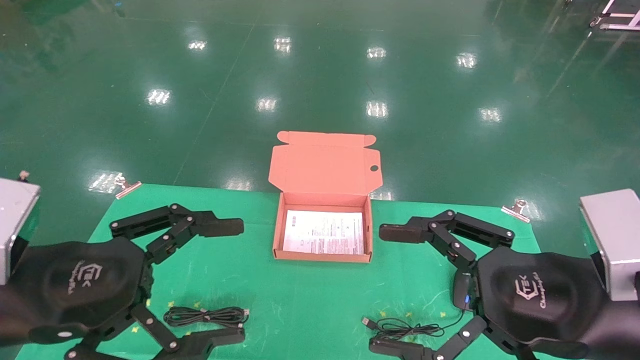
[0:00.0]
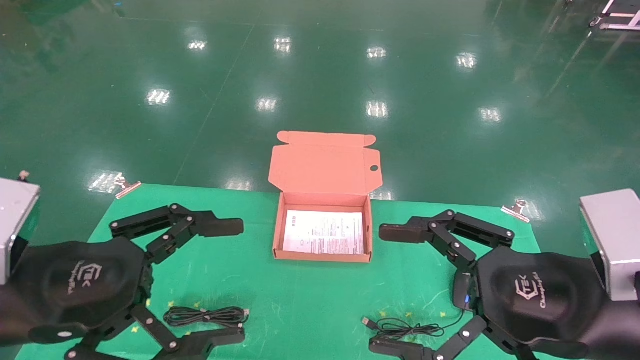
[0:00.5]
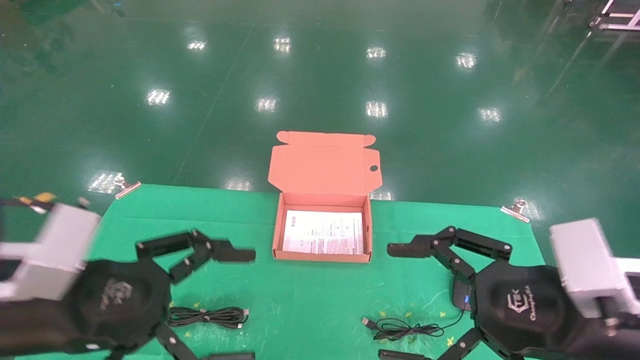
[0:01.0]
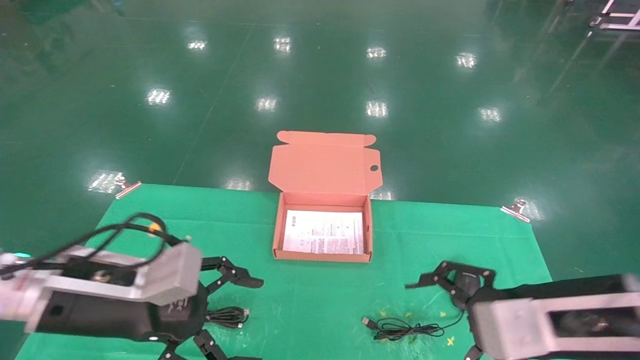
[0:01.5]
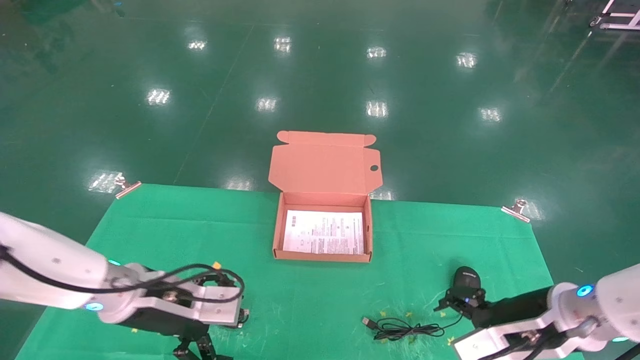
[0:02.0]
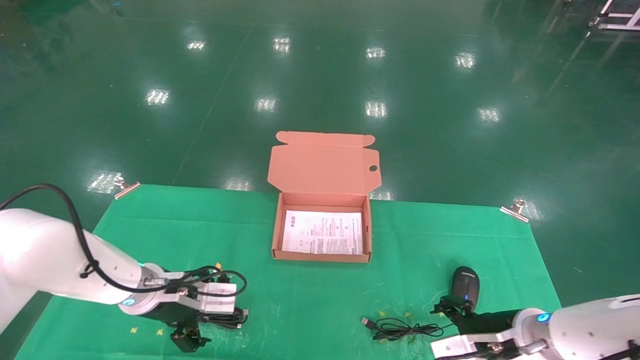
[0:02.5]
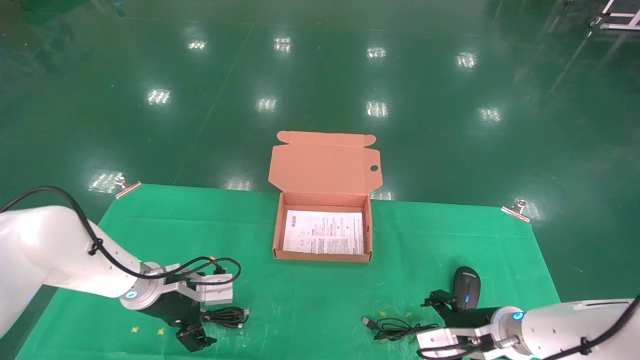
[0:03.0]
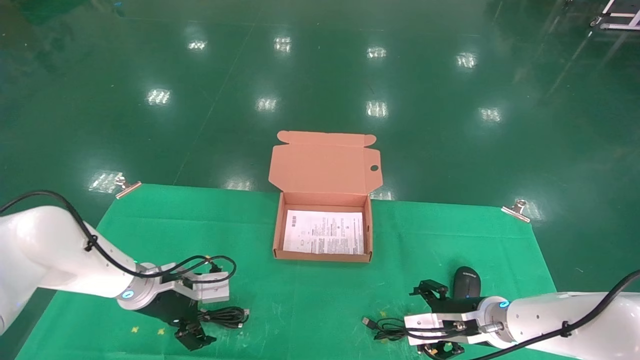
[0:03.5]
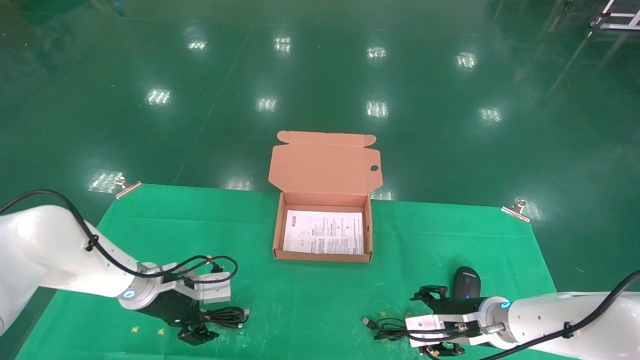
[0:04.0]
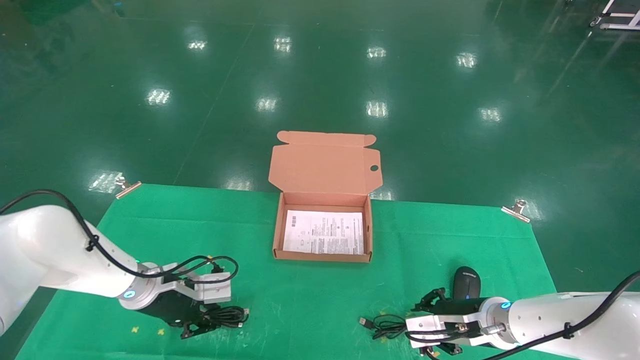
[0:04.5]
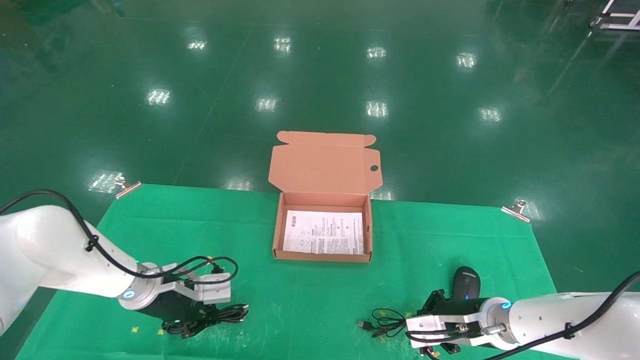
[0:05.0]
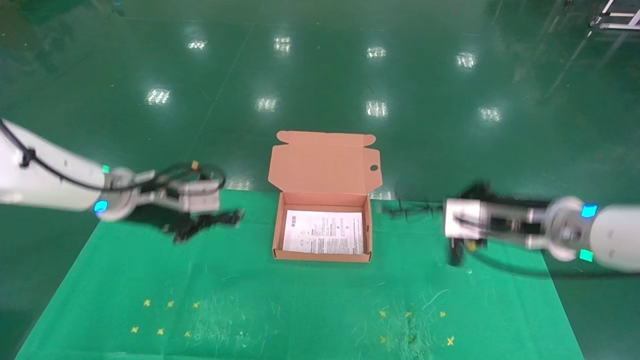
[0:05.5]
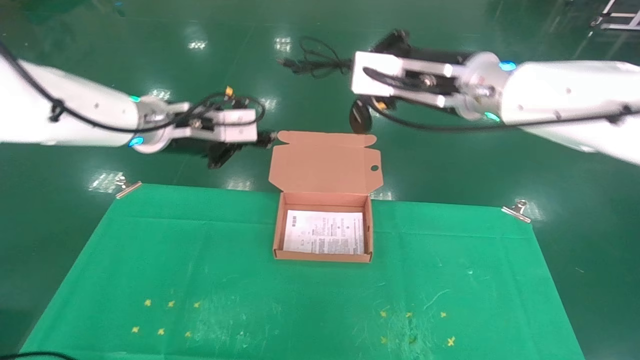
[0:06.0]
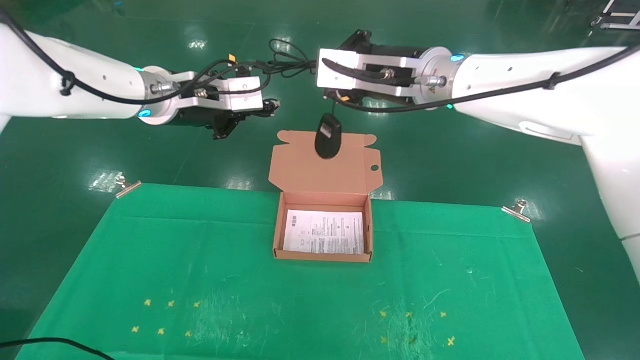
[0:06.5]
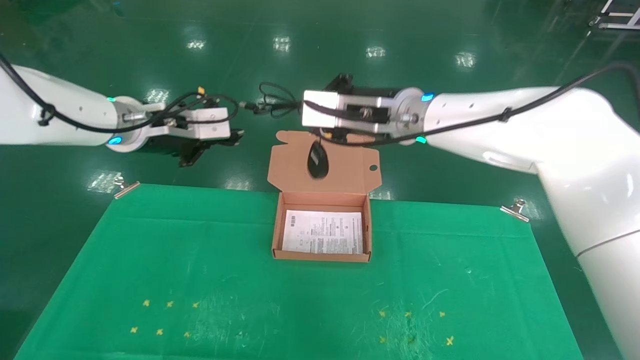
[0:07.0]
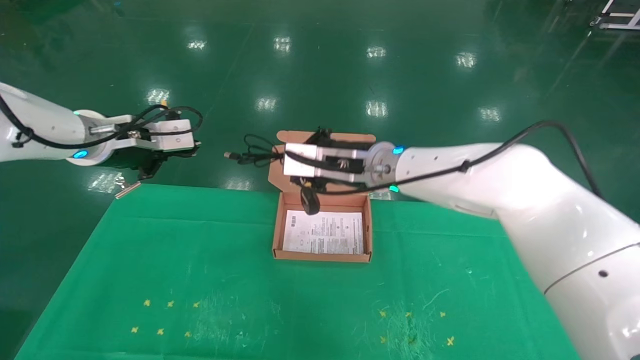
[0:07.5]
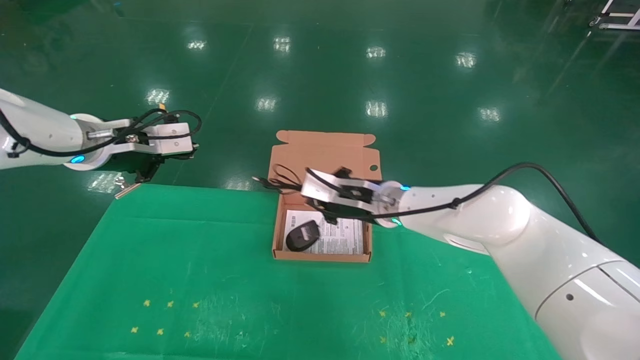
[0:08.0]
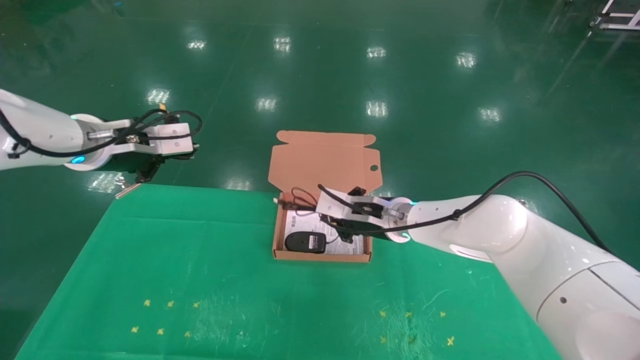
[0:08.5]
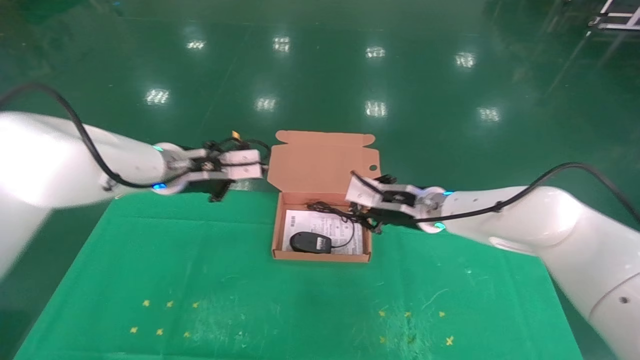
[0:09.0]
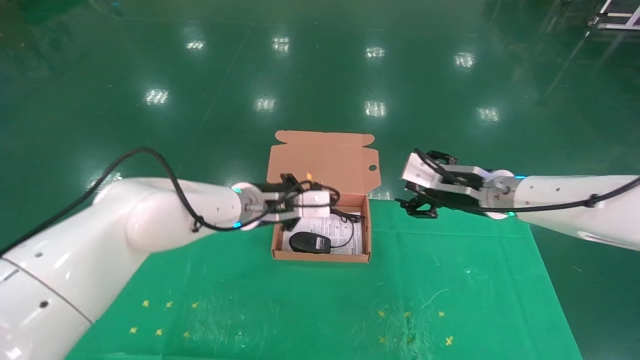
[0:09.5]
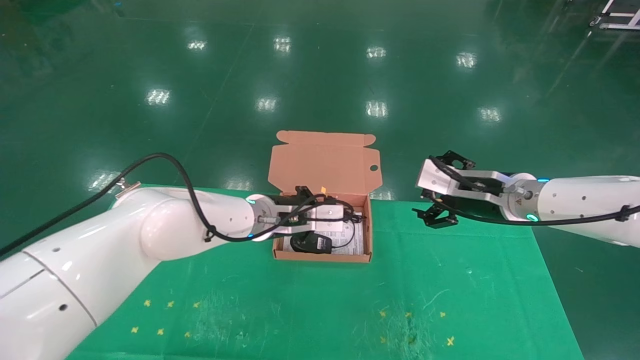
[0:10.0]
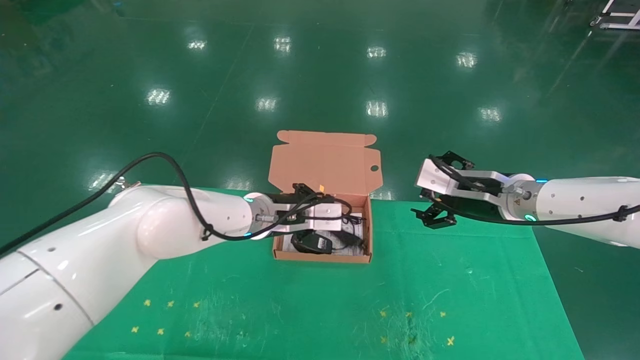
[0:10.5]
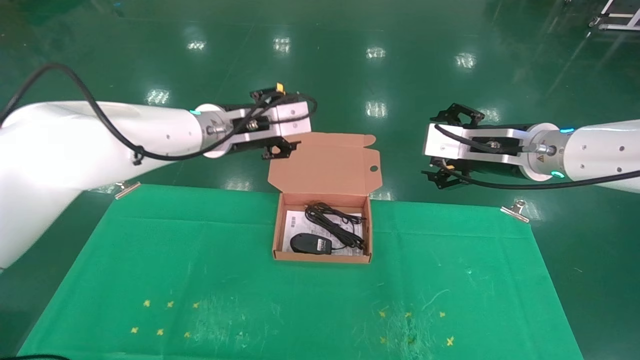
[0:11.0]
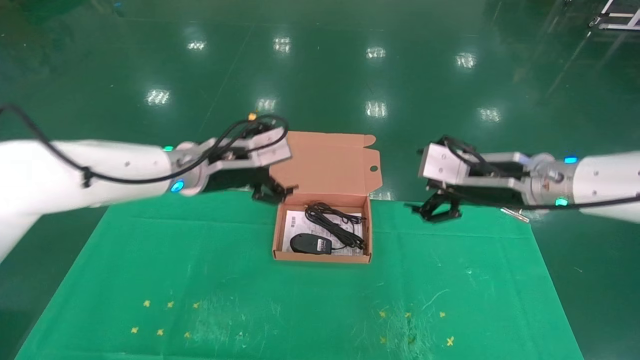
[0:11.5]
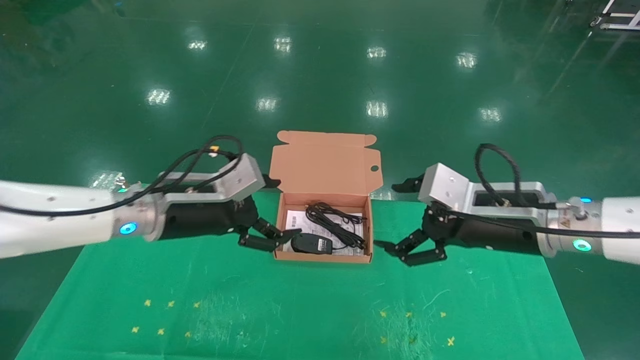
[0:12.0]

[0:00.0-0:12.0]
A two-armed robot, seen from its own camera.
Task of the whole recording: grasp data cable left put into box grasp mouse right put into box.
Step, 0:01.0 to 0:05.5: Grab and pick up both the mouse and power cord from the accessory packaging area at the same time.
Step, 0:06.0 to 0:10.5: Place the mouse and power cord into the box.
0:00.0 to 0:02.0: The two grippers go roughly 15 cm forward and downward.
0:02.0 to 0:04.0: Both grippers move forward and downward, about 10 cm.
0:04.0 to 0:06.0: Both grippers move upward, roughly 30 cm. The right gripper closes its fingers, while the left gripper closes up.
0:06.0 to 0:08.0: The left gripper goes some 10 cm to the left, while the right gripper shifts roughly 20 cm downward, forward and to the left.
0:08.0 to 0:10.0: The left gripper goes some 25 cm to the right and downward, while the right gripper shifts roughly 20 cm to the right, and opens.
0:10.0 to 0:12.0: The left gripper moves to the left and backward, about 15 cm, and opens, while the right gripper heads backward, covering approximately 10 cm.

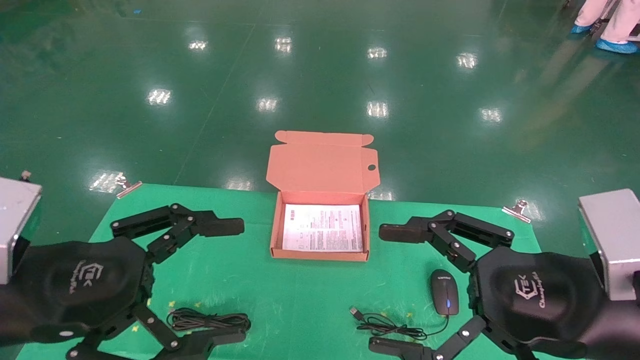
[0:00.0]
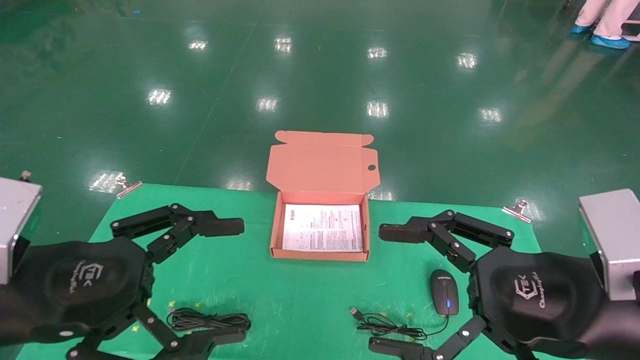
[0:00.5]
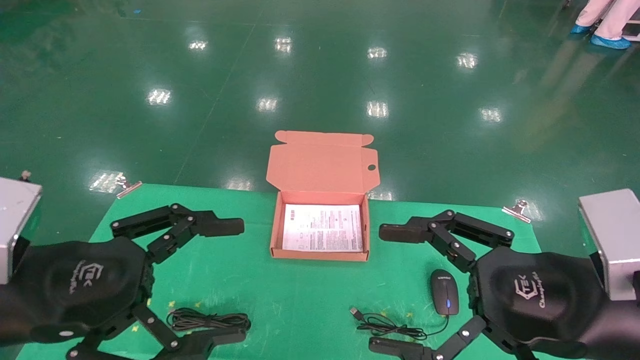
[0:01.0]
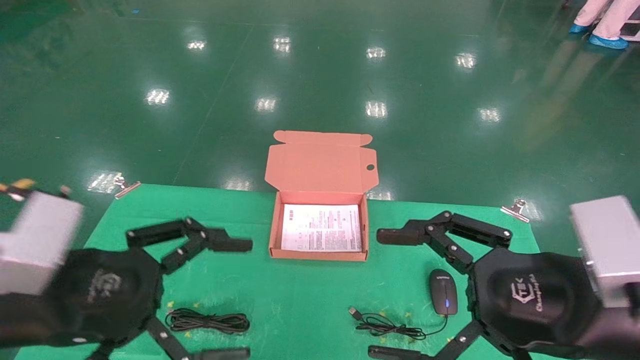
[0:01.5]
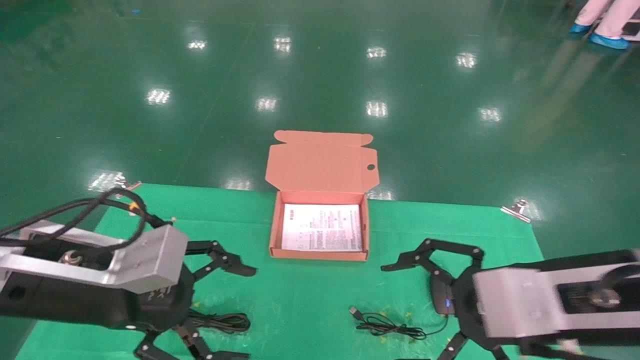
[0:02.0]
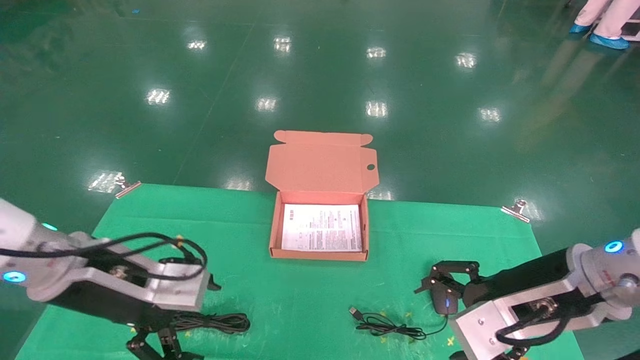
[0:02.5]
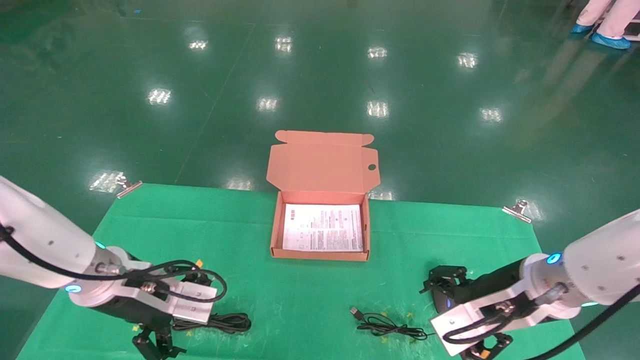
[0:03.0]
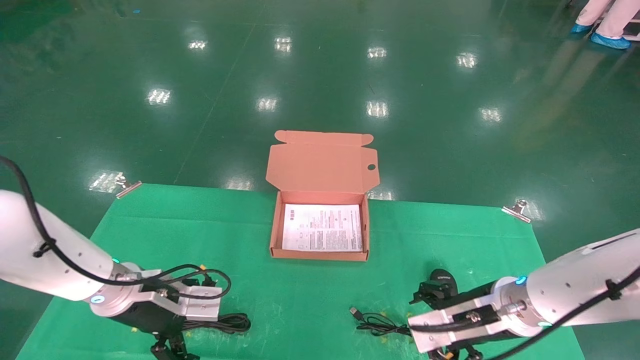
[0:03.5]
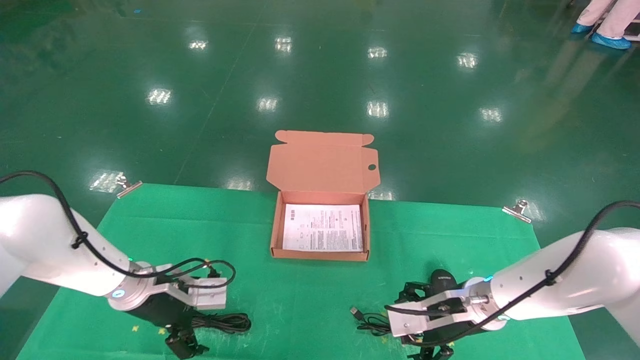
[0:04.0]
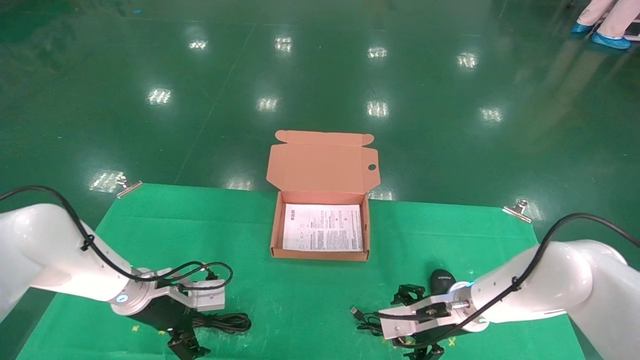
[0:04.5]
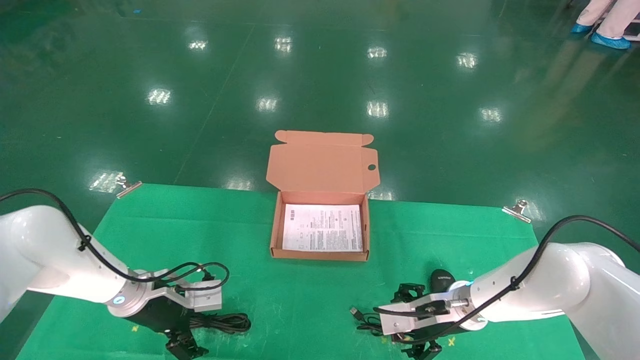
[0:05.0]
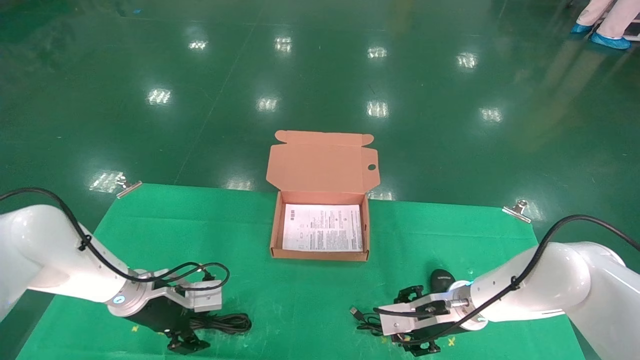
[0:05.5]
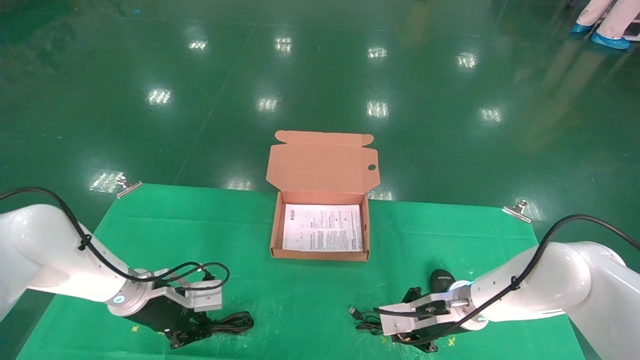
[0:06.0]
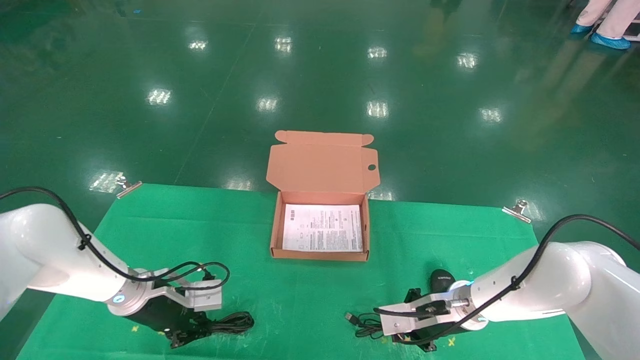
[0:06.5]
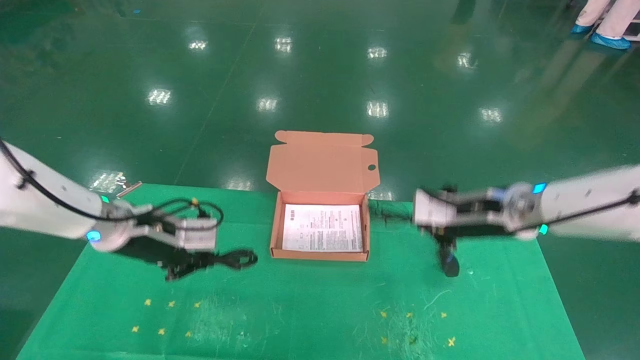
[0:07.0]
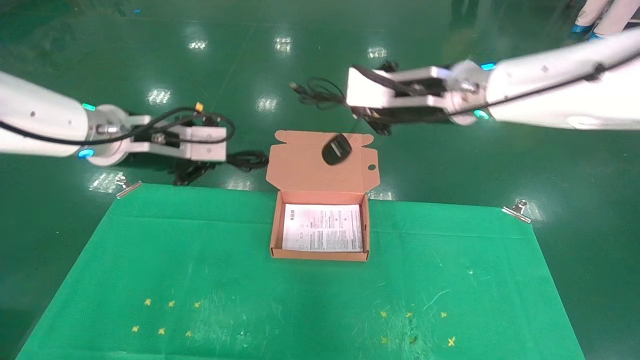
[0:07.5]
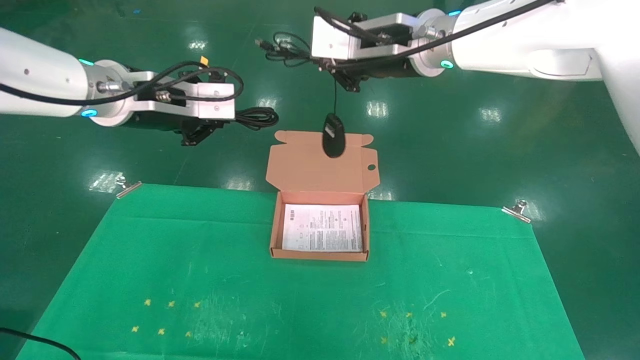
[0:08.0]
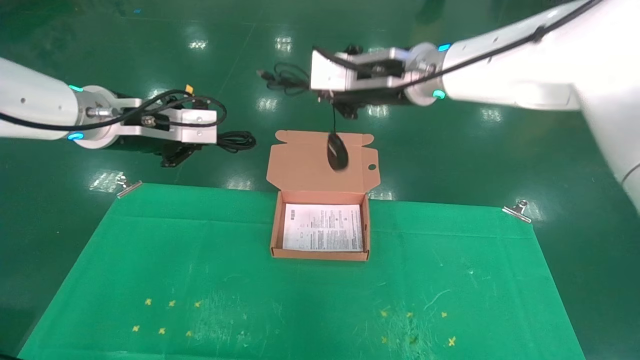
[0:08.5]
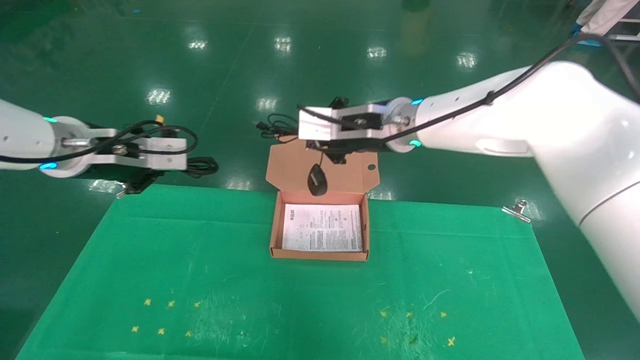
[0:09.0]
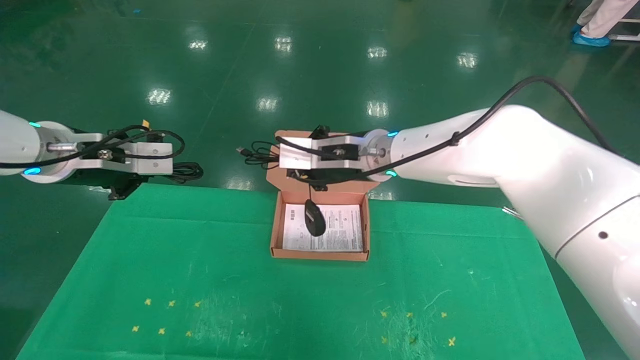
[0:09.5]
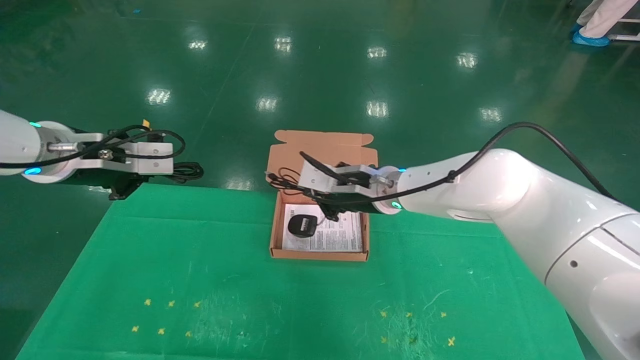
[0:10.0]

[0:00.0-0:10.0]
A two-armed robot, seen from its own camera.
Task of the whole recording: grasp data cable left put into box grasp mouse right put into box.
Step, 0:01.5 to 0:06.5: Grab and pick up both the mouse and power cord from the accessory packaging area at the same time.
0:00.0 to 0:02.0: The left gripper ends up some 5 cm from where it was.
0:02.0 to 0:04.0: Both grippers travel together forward and downward, roughly 20 cm.
0:04.0 to 0:06.0: The right gripper closes its fingers, while the left gripper closes its fingers.
0:06.0 to 0:08.0: The two grippers go about 35 cm upward.
0:08.0 to 0:10.0: The right gripper goes about 20 cm downward; the left gripper shifts roughly 10 cm to the left and downward.
